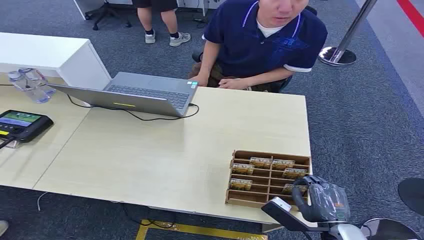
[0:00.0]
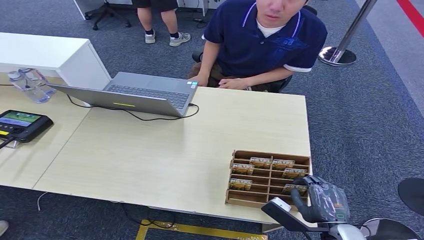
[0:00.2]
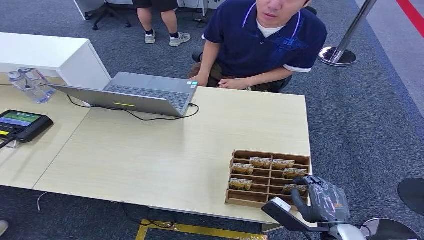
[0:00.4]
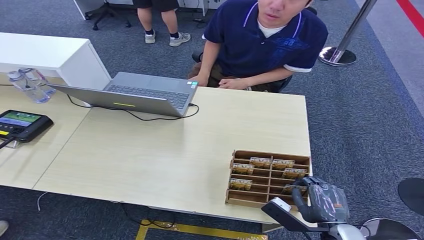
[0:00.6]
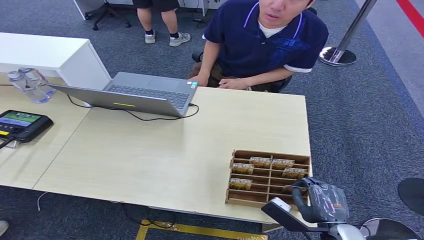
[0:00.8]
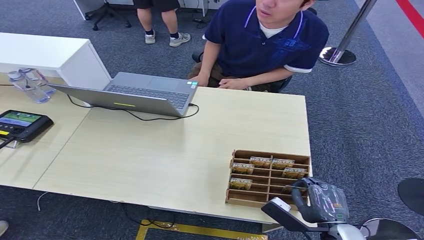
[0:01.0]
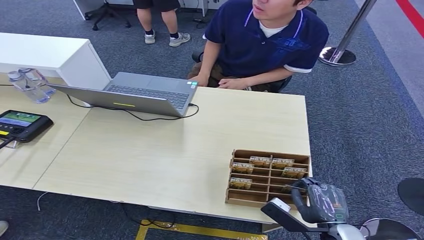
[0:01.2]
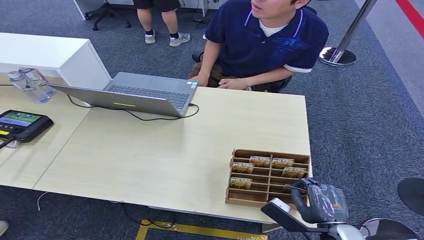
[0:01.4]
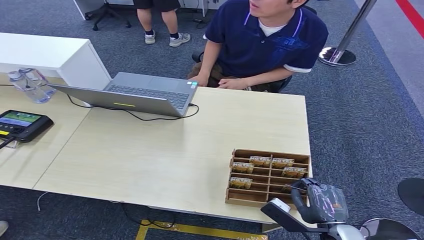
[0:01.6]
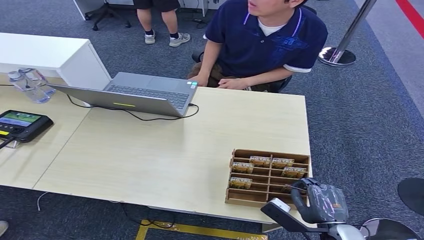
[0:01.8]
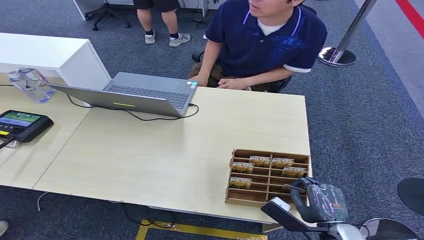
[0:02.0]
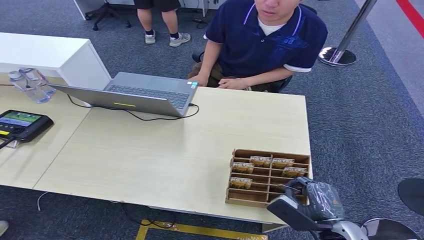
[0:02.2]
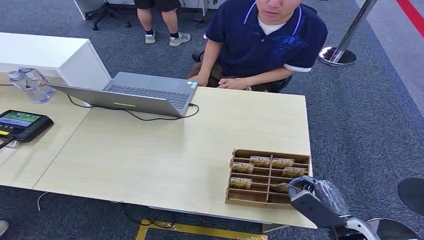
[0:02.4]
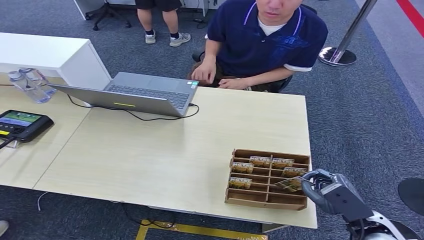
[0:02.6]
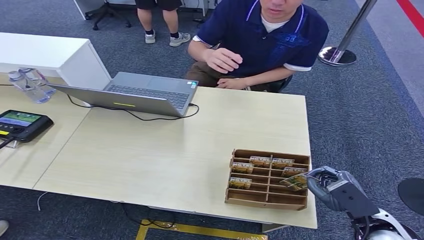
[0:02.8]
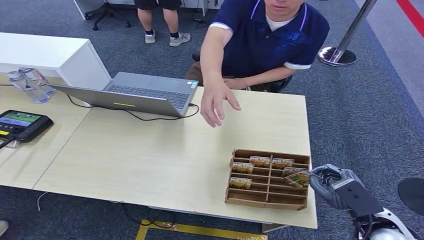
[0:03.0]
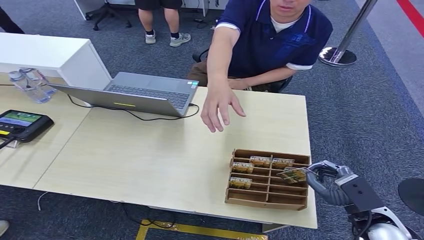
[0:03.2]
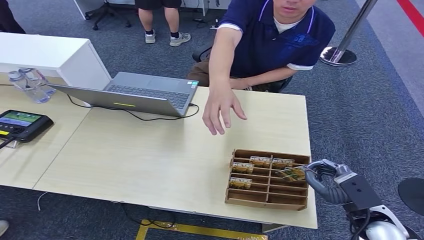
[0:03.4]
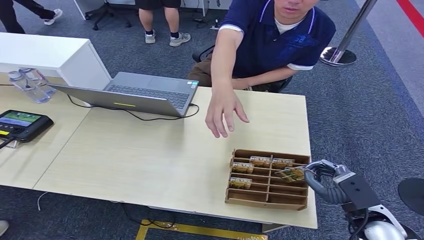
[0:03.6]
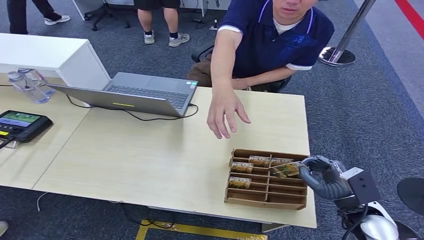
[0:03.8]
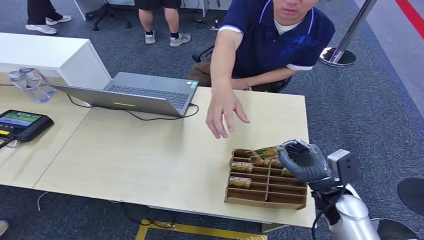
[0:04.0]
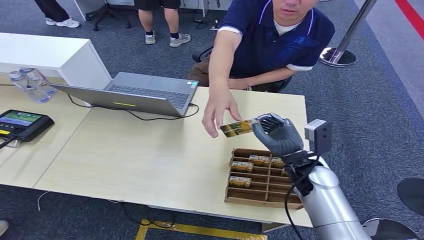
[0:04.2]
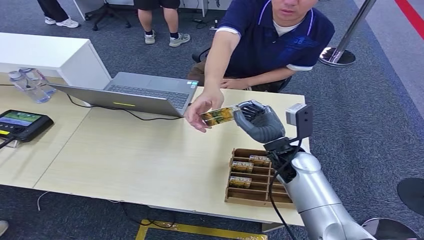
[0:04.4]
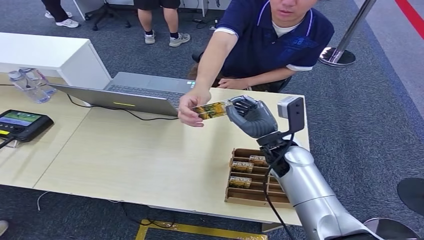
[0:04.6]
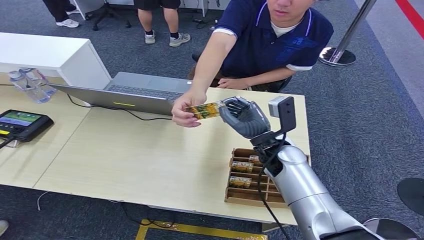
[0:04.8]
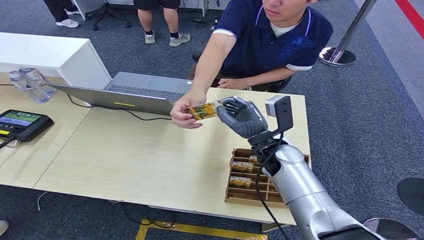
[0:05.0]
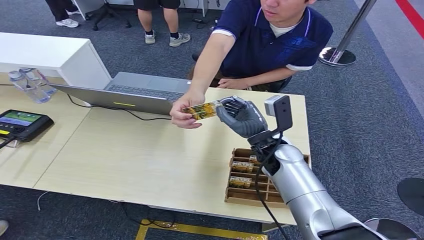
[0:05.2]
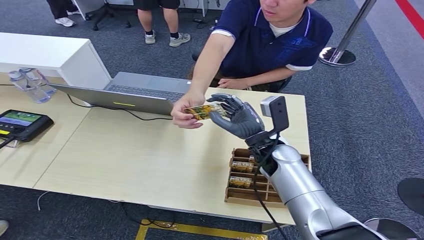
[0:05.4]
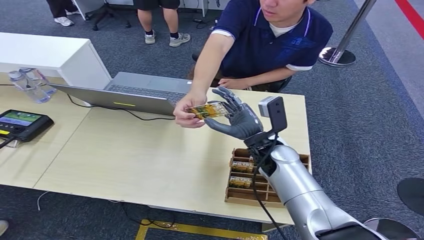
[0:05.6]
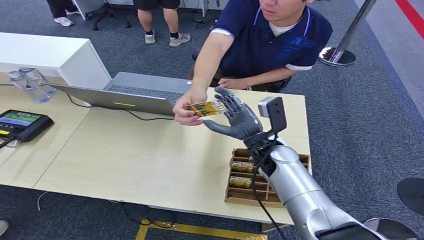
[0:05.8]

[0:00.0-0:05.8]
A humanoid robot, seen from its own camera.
Step, 0:00.0 to 0:03.8: Pick up the key card from the card box.
Step, 0:04.2 to 0:05.8: Hand the key card to the target.
0:01.4 to 0:02.8: The right hand shifts about 5 cm to the right.
0:02.8 to 0:04.4: The right hand heads to the left and forward, covering about 25 cm.
0:04.4 to 0:05.8: There are only small adjustments of the hands.
